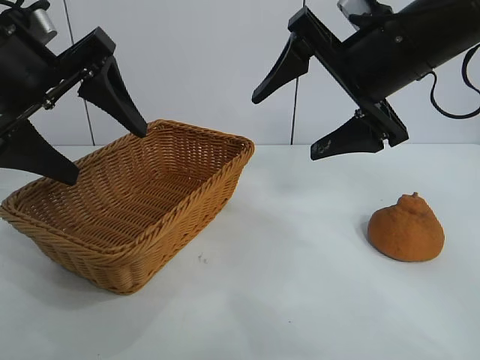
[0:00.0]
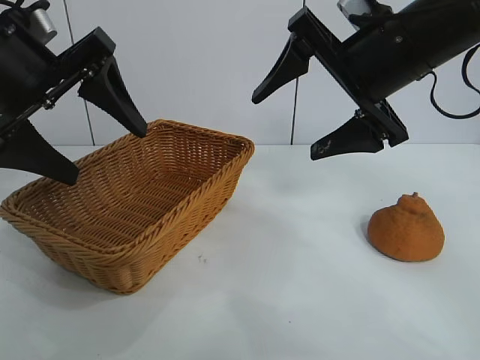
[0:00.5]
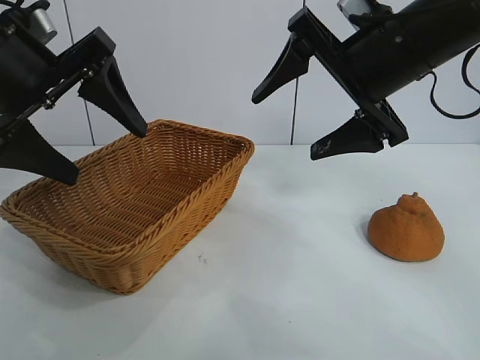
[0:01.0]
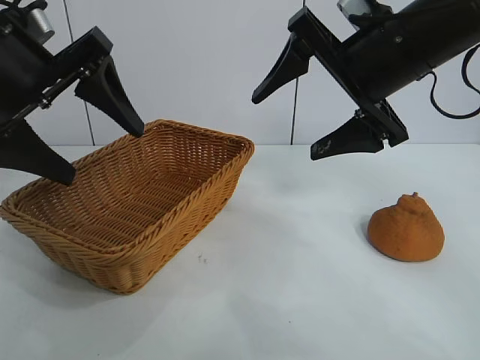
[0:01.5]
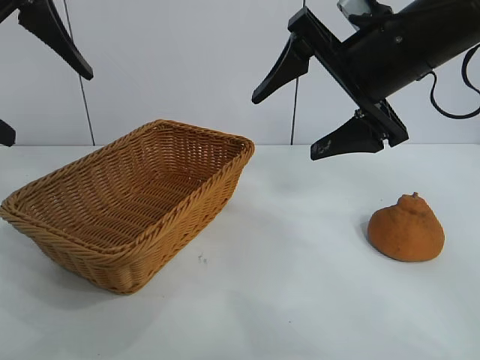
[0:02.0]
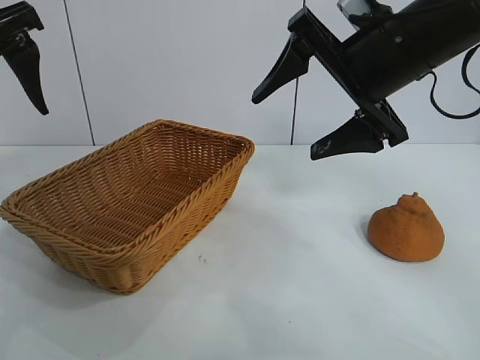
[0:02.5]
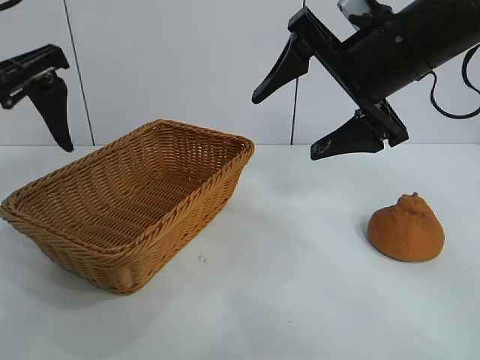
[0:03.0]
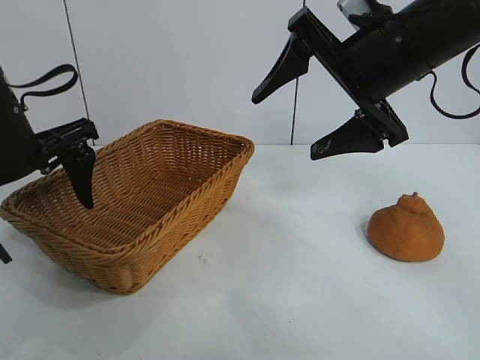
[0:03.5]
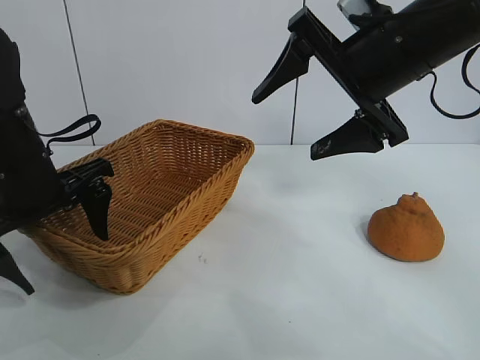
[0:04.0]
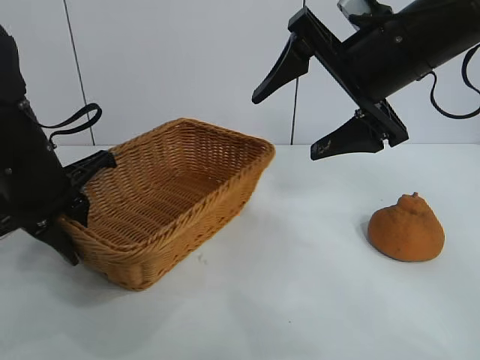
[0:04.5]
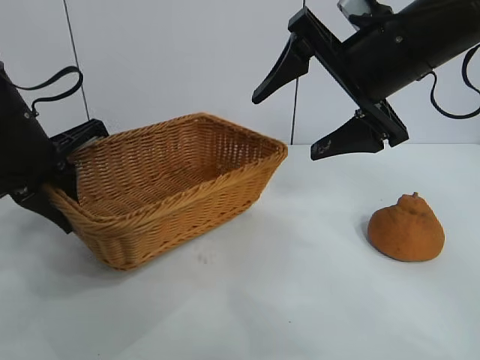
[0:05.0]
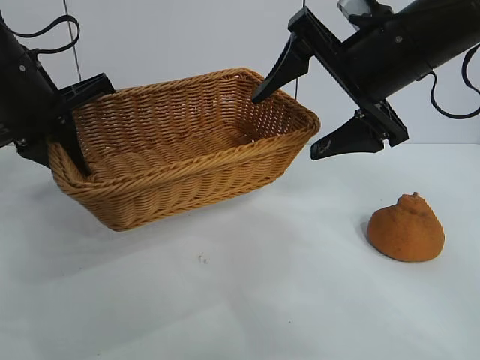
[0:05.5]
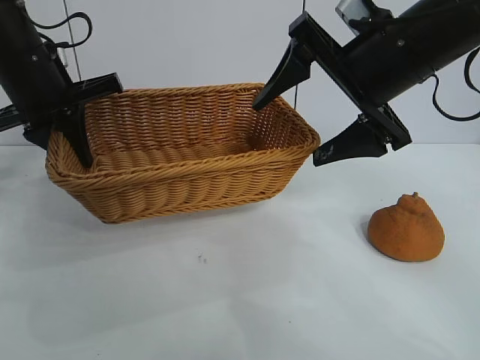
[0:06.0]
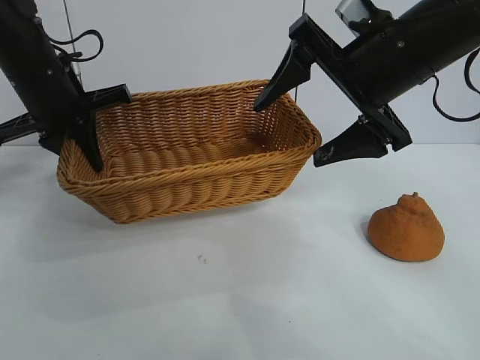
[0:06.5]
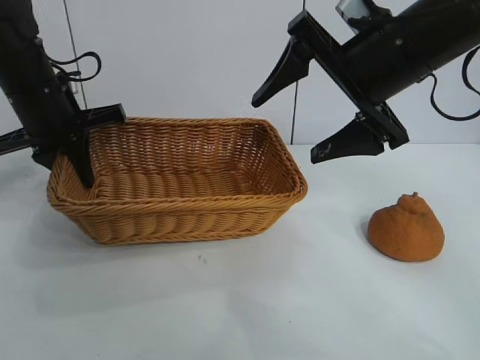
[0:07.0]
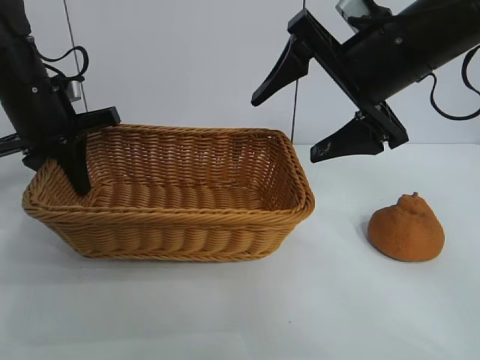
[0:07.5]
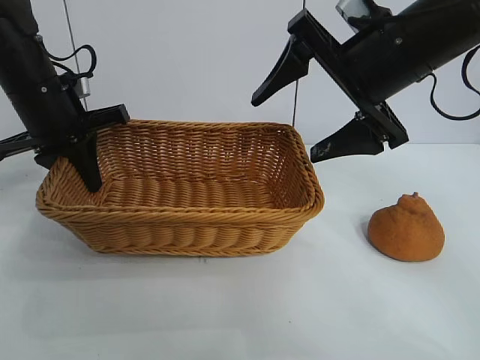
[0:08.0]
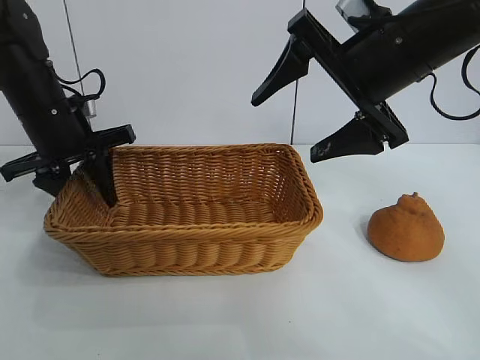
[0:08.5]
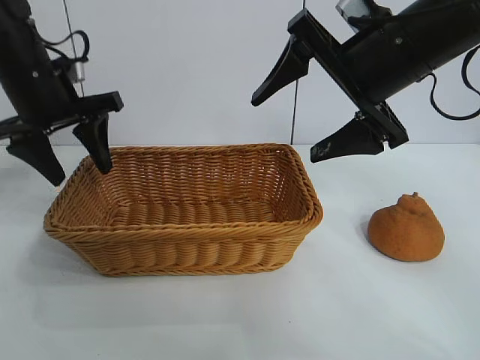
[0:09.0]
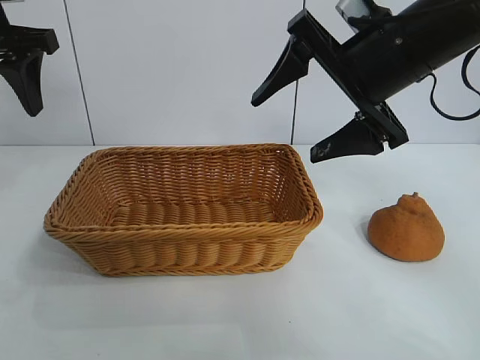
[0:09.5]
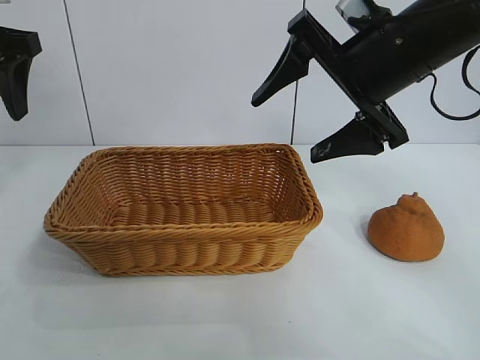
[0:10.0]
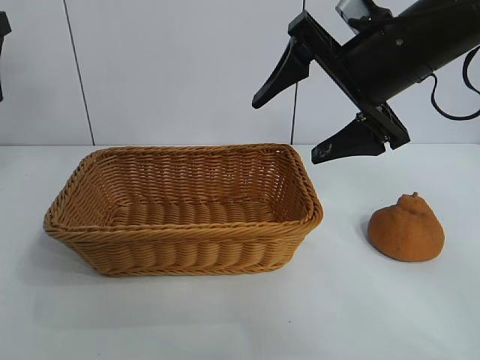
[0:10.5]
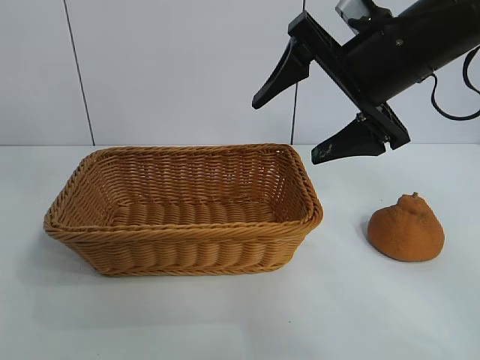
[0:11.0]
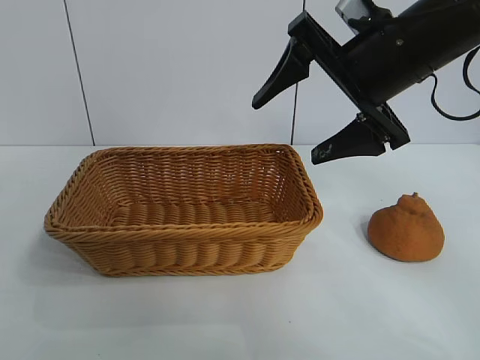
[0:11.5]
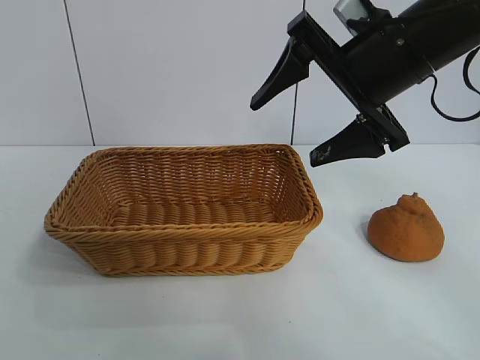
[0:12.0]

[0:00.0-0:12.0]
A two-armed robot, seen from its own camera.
Task of the whole recording: pick up the orange and put it into the basket.
Step, 0:01.5 to 0:04.0: Grasp the basket with left gripper.
Step, 0:05.0 to 0:08.5: Place the basket in the center of view with left gripper.

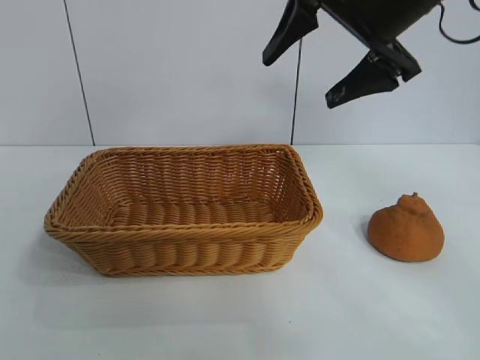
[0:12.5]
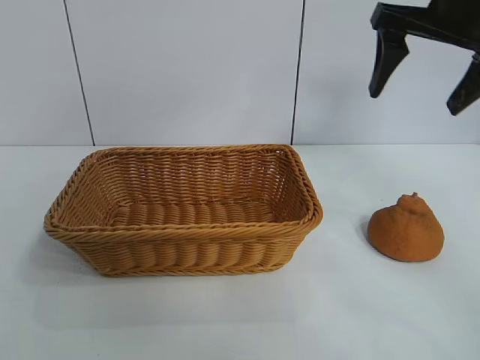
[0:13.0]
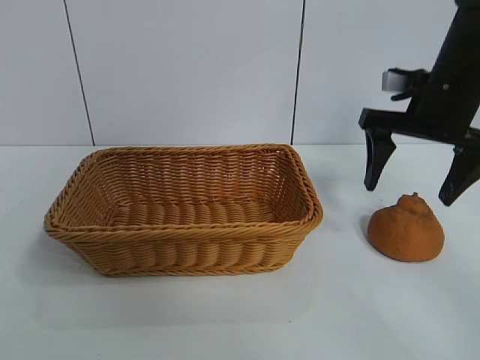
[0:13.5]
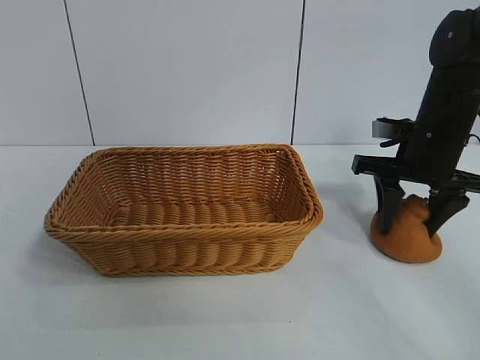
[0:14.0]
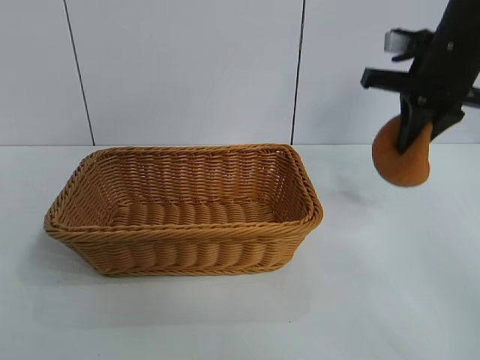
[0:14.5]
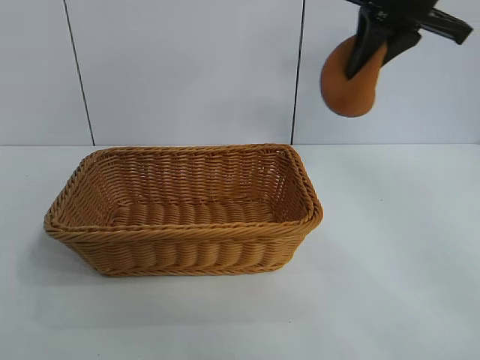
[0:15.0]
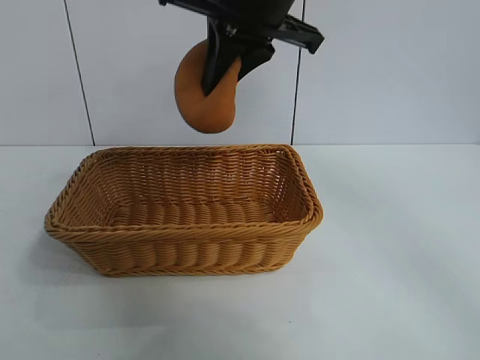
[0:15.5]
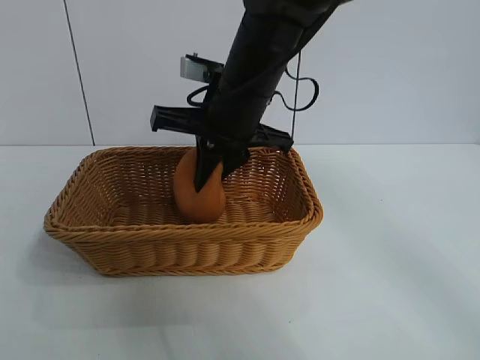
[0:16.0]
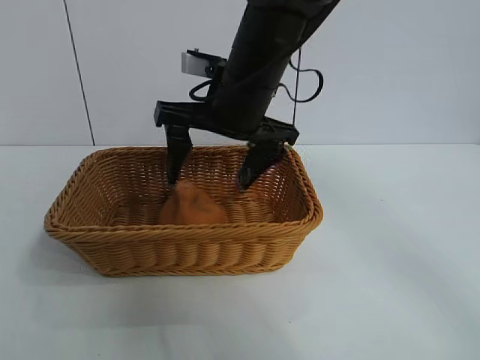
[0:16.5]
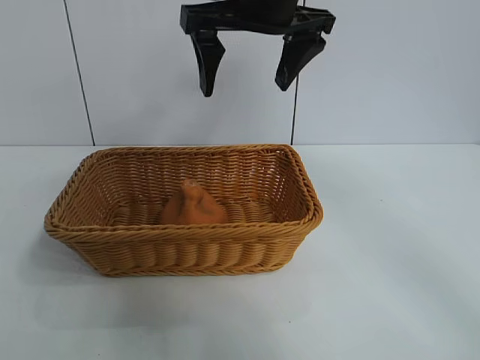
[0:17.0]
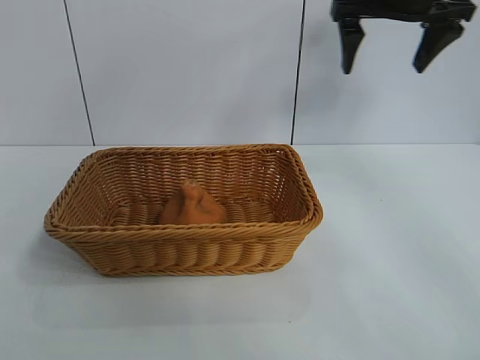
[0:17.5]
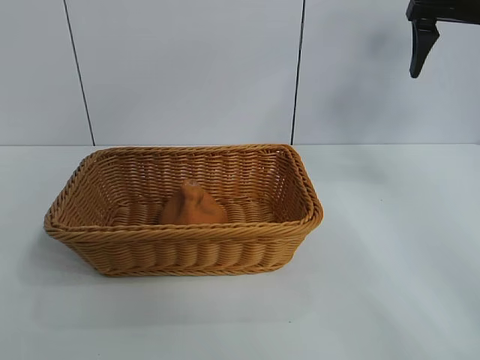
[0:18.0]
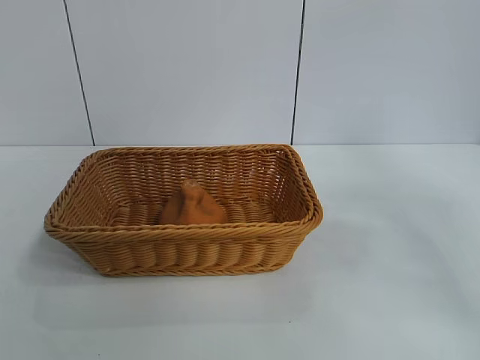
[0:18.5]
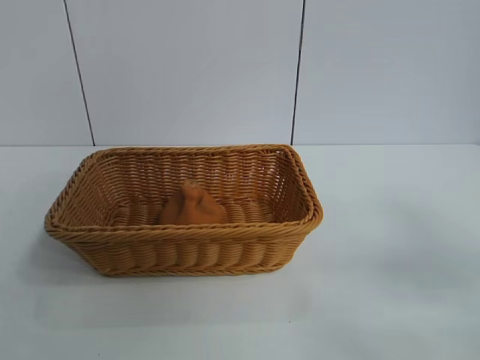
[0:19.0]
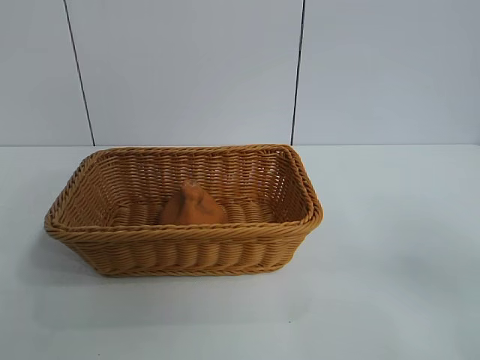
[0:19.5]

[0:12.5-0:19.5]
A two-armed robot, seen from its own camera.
Task of the whole recording: pick up the orange and put it into the basket.
Step, 0:14.5 to 0:16.5: Place the orange in the basket with right gripper.

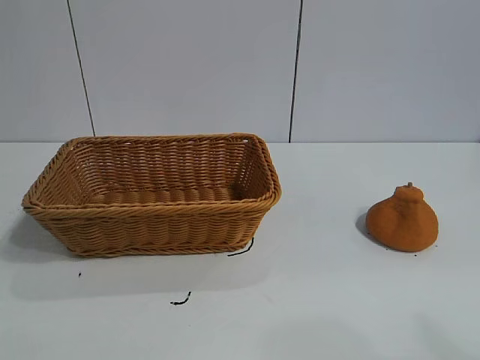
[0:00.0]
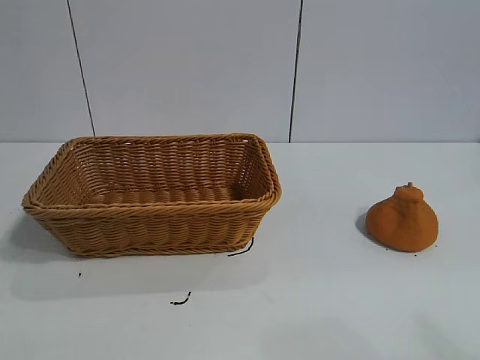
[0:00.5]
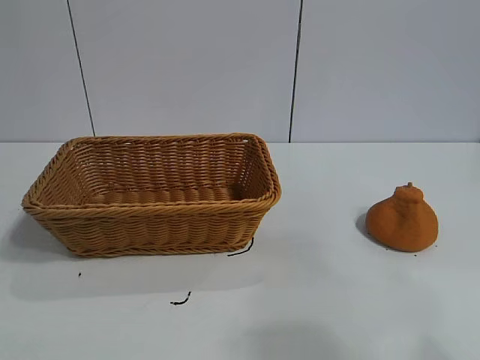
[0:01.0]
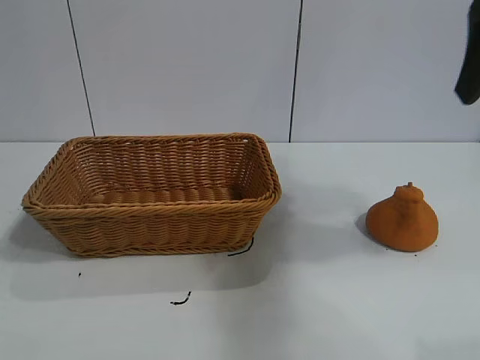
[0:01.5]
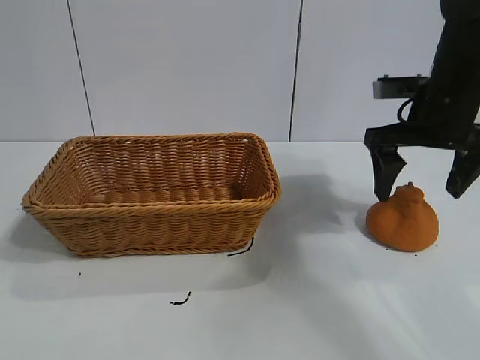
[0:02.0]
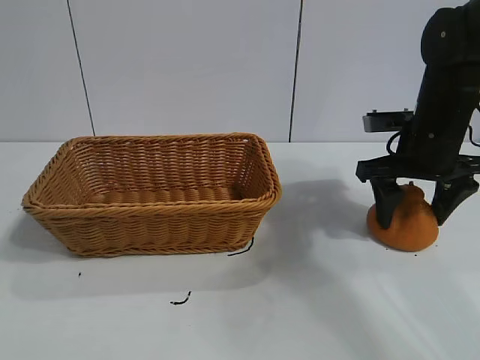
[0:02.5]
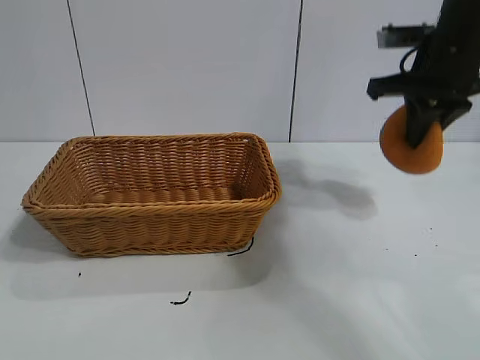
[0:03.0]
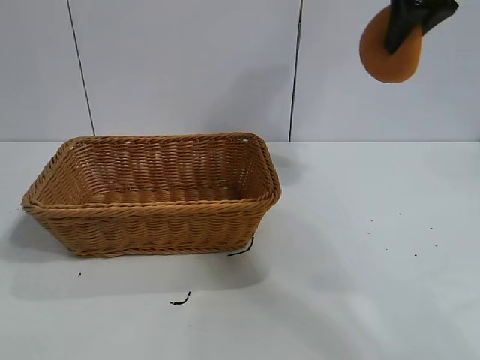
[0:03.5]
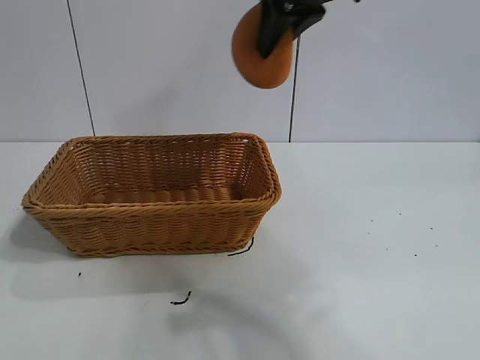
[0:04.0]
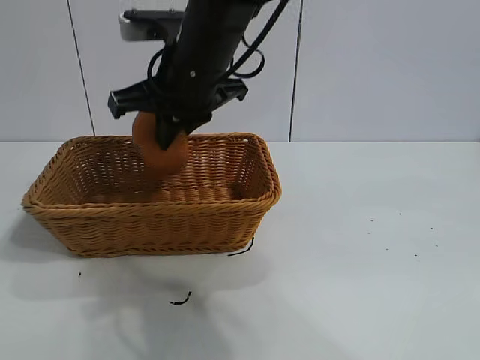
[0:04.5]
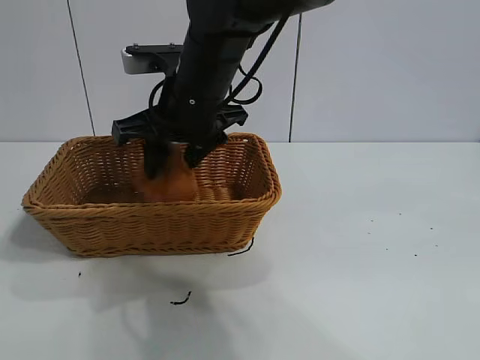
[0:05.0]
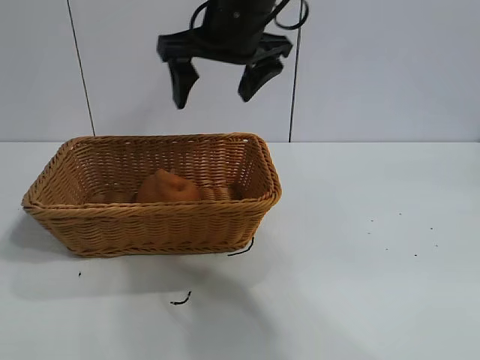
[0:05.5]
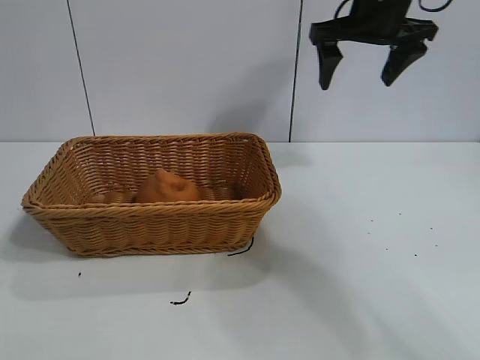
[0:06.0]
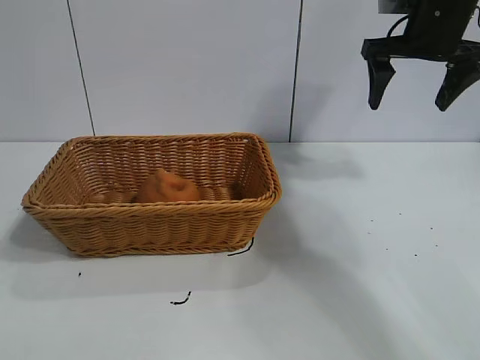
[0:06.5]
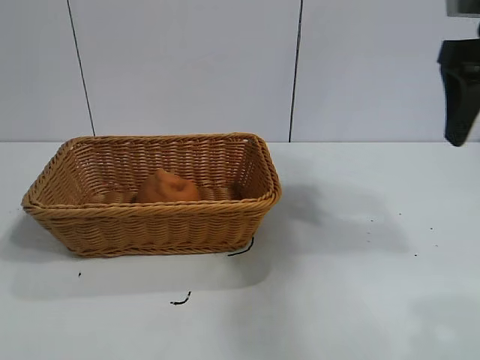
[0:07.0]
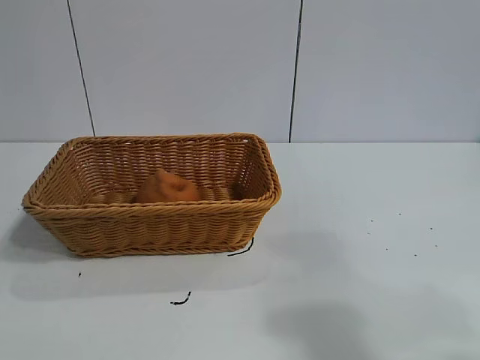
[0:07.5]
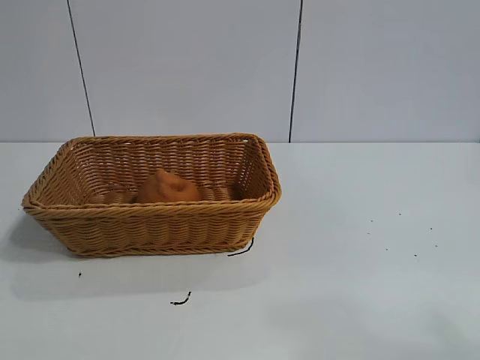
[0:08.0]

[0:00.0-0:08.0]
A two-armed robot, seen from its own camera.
Task of the whole recording: pick up the orange and put it into the basket.
Step, 0:01.0 to 0:02.5: Grasp the orange with right gripper.
Step, 0:03.0 to 0:05.0: Place the orange in the basket with right gripper.
